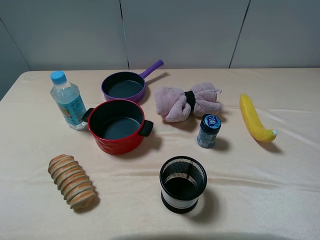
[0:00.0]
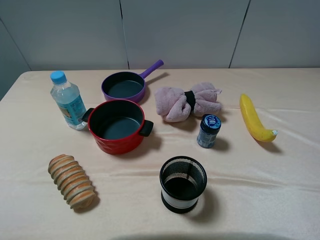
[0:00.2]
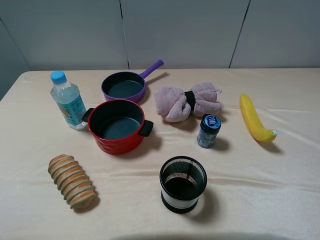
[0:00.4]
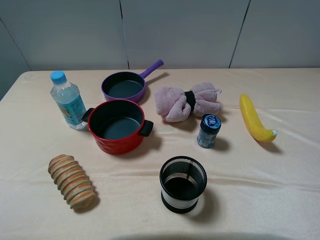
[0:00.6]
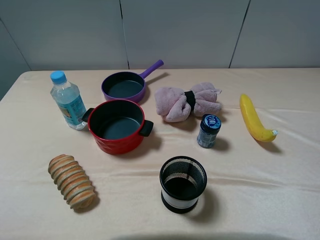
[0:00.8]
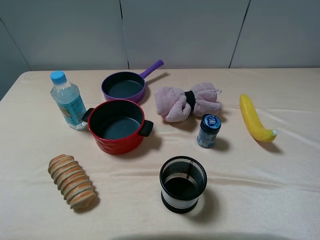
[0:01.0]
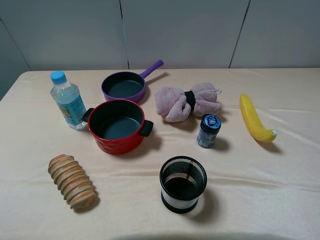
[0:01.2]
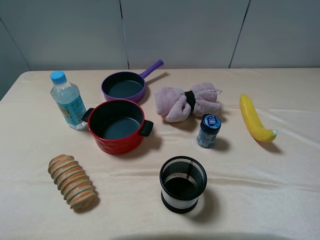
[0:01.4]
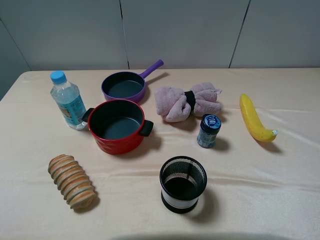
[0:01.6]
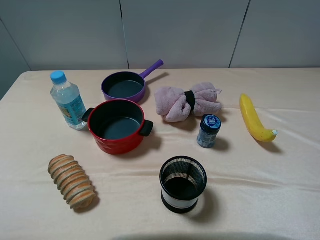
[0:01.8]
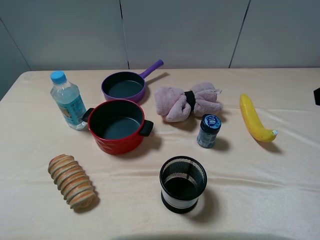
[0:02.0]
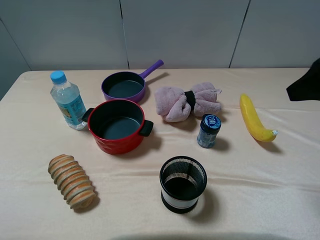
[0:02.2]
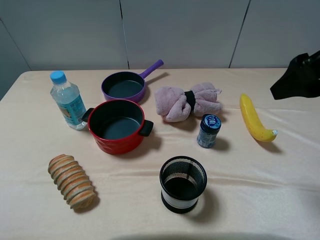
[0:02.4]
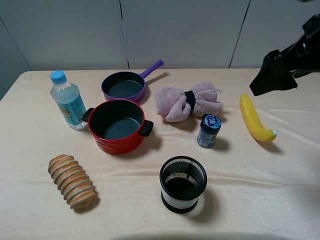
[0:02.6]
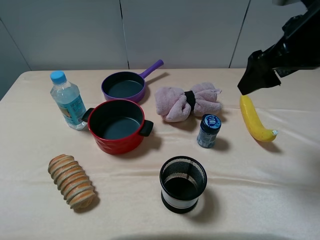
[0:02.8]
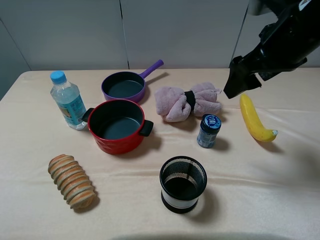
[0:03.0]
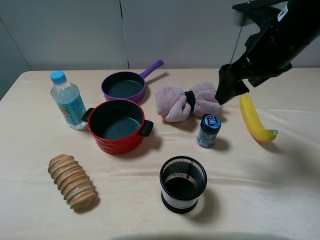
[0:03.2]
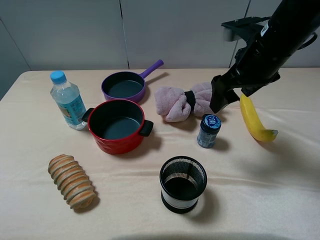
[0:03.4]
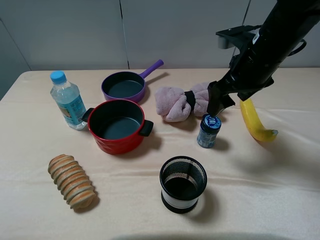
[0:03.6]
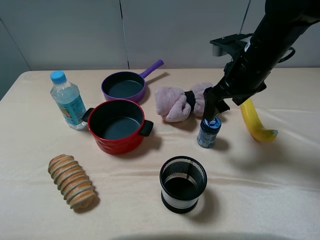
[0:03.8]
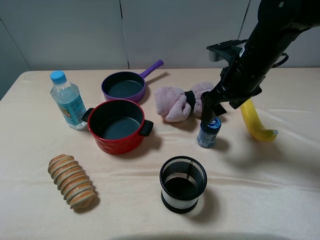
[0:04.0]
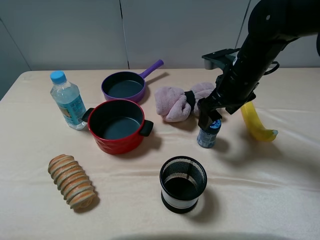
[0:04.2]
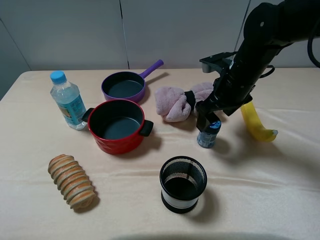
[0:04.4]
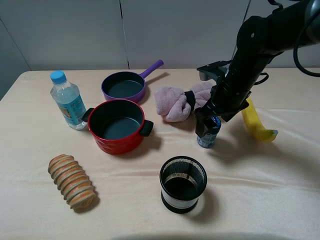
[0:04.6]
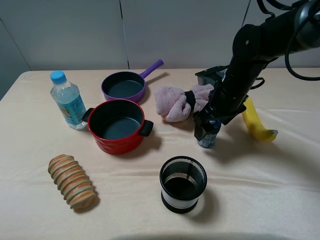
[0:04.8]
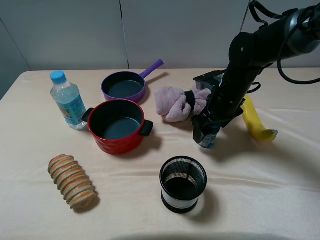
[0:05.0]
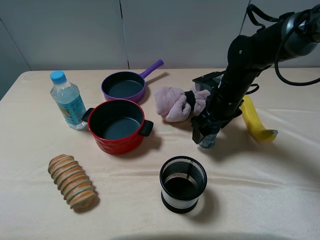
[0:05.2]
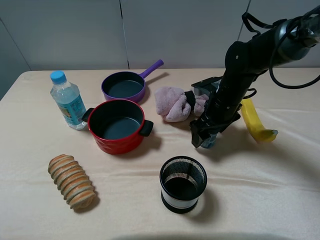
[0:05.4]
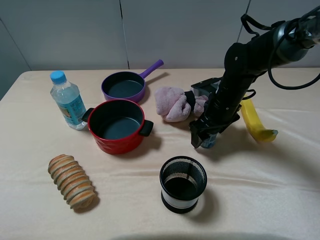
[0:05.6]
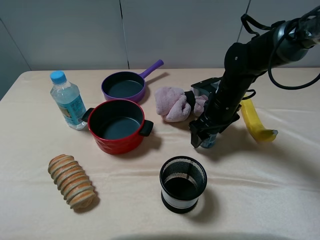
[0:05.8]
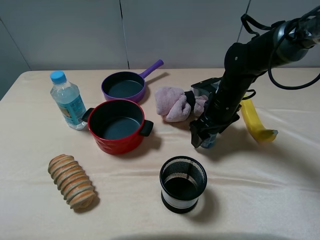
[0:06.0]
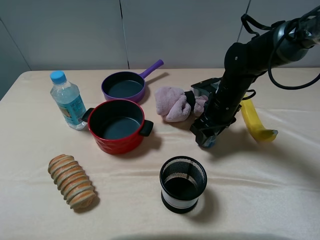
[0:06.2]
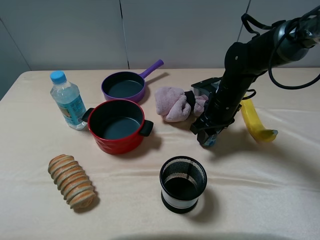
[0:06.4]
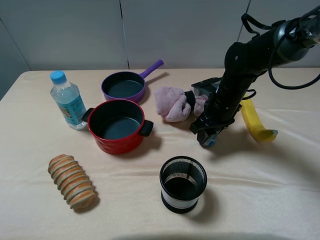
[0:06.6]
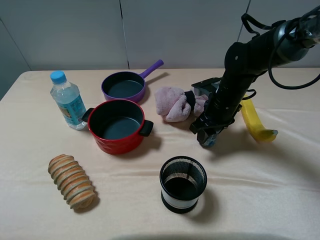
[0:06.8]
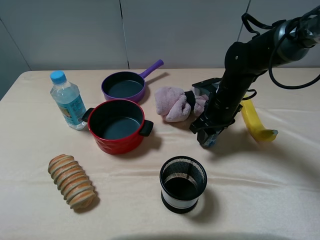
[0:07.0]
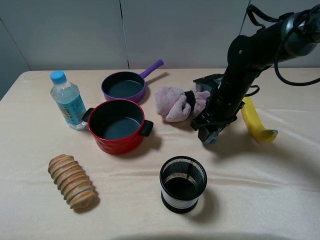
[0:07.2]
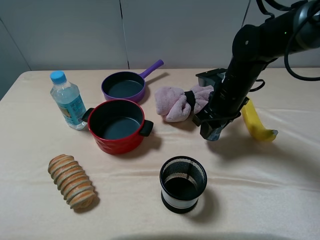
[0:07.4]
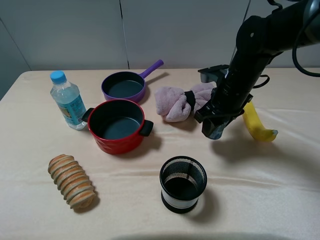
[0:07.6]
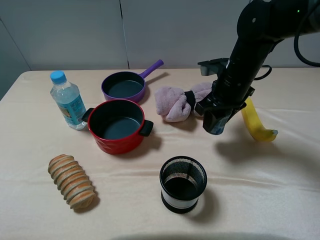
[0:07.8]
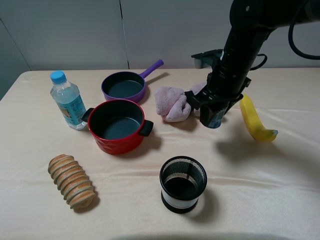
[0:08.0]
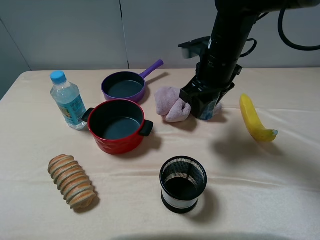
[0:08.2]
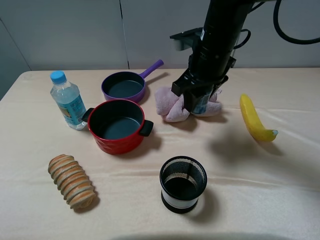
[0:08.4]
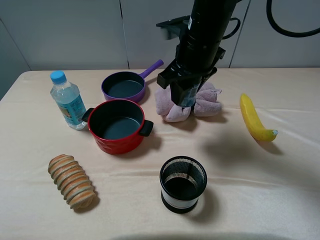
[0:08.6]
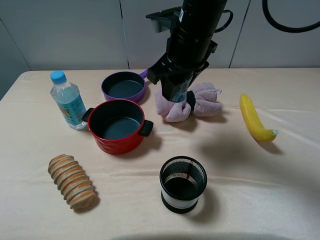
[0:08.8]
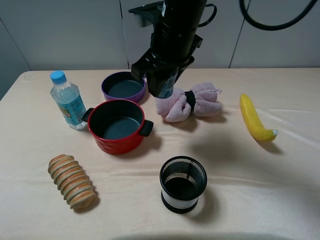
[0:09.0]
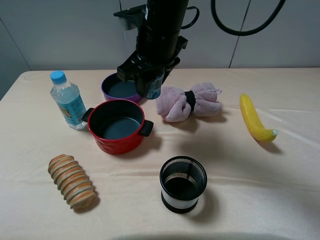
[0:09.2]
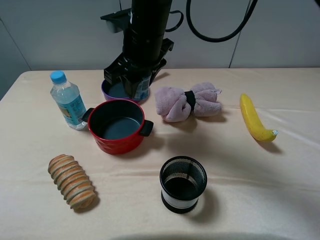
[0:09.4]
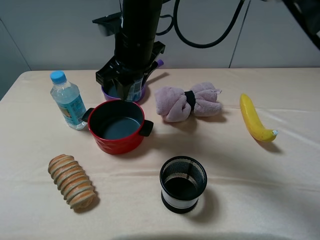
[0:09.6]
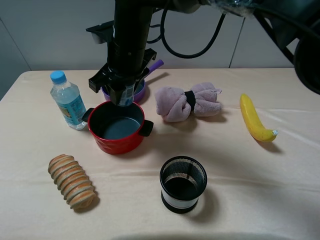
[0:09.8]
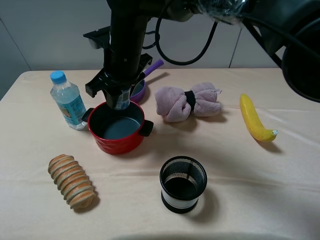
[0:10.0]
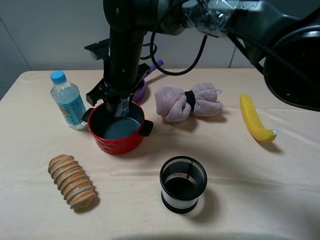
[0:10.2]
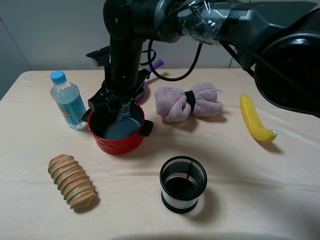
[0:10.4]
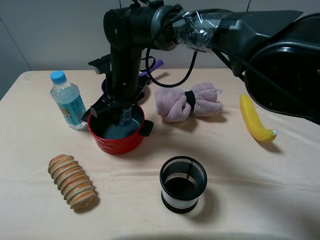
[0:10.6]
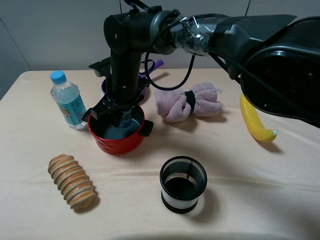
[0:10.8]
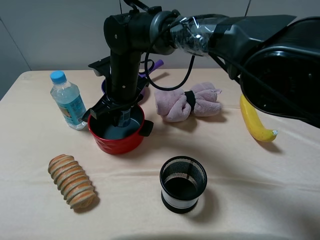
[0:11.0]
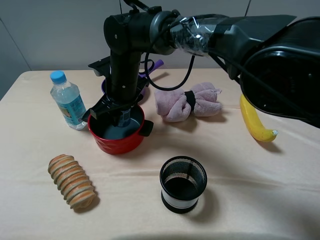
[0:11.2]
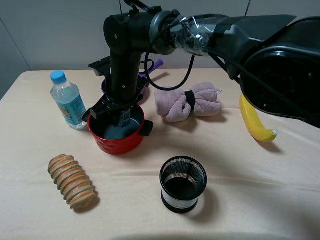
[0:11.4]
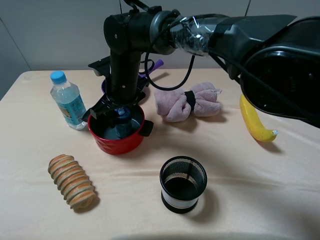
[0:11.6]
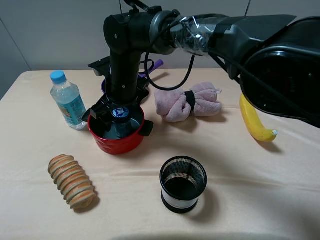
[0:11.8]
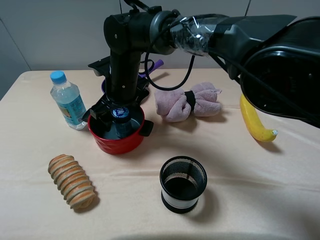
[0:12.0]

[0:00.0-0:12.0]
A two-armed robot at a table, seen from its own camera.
Task of the whole recording: pick up an item with a gripper and place it in a random container on the table.
Step, 0:00.0 to 0:06.6: Grasp the round chewing gum with the right gripper.
0:01.6 to 0:03.0: The right gripper shifts roughly 20 cm forward and to the left.
0:03.0 to 0:04.4: The right gripper goes roughly 15 cm downward and forward.
0:04.4 to 0:06.0: The right gripper goes approximately 5 cm downward.
0:06.0 to 0:07.6: The right gripper is displaced upward by roughly 5 cm, and closes its fingers.
0:07.6 to 0:09.0: The right gripper moves to the left and upward, approximately 20 cm.
0:09.0 to 0:10.4: The right gripper heads downward and to the left, covering some 15 cm.
0:10.4 to 0:12.0: The right gripper opens.

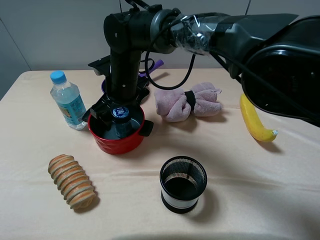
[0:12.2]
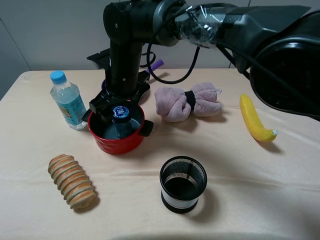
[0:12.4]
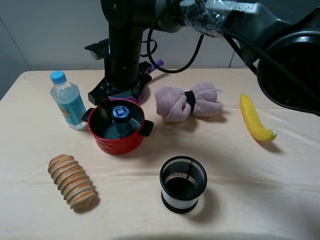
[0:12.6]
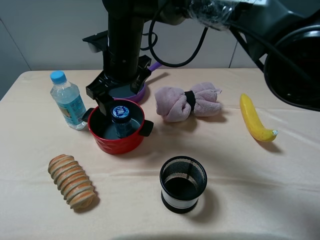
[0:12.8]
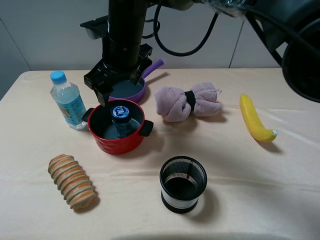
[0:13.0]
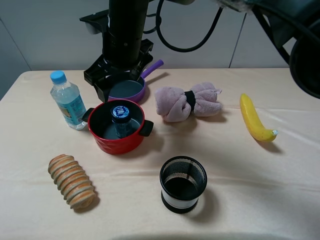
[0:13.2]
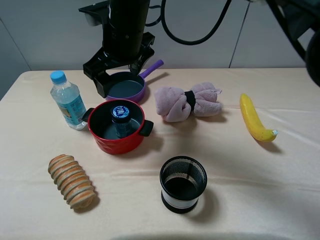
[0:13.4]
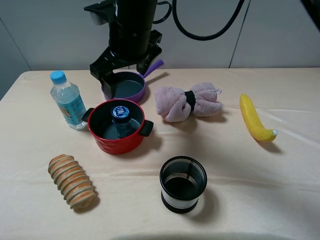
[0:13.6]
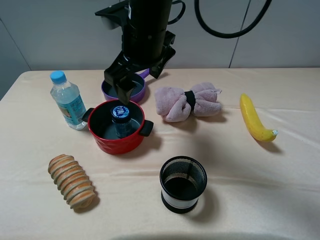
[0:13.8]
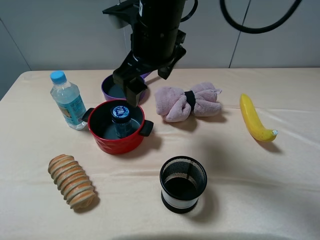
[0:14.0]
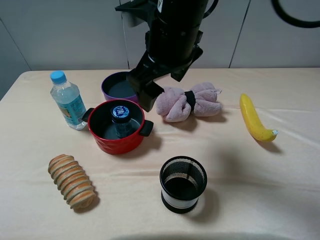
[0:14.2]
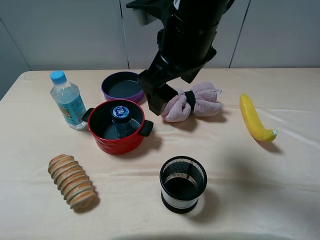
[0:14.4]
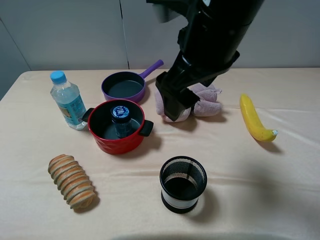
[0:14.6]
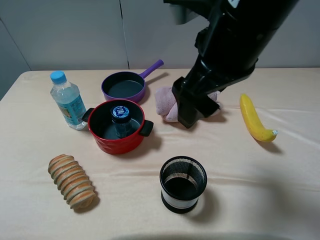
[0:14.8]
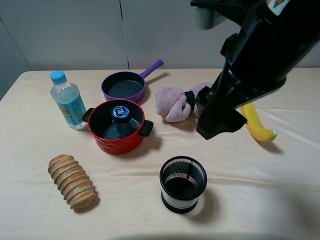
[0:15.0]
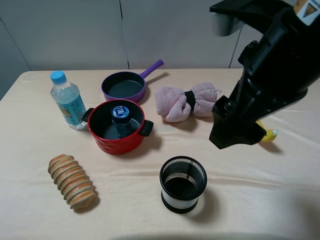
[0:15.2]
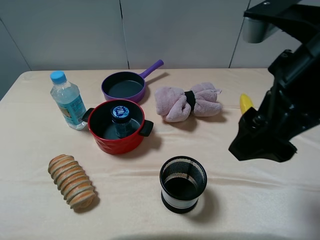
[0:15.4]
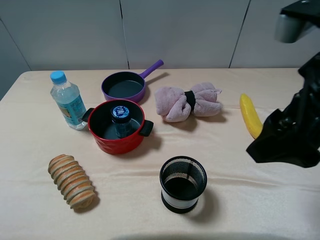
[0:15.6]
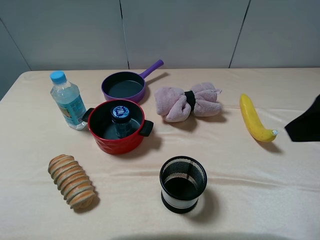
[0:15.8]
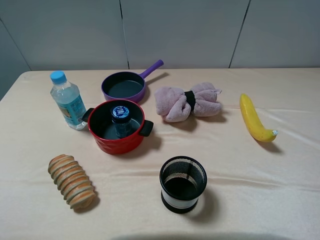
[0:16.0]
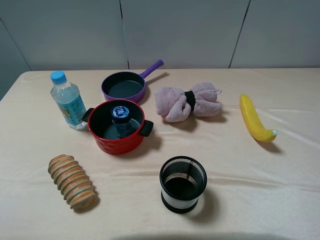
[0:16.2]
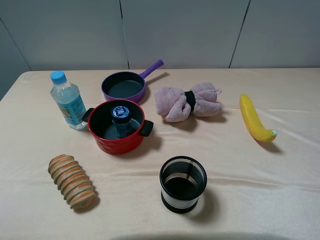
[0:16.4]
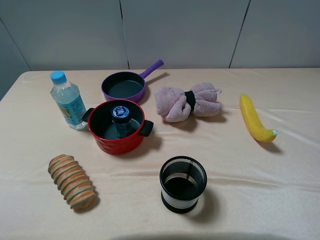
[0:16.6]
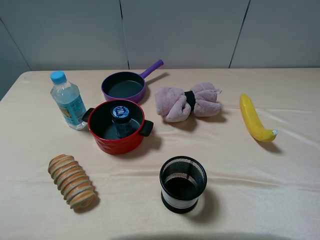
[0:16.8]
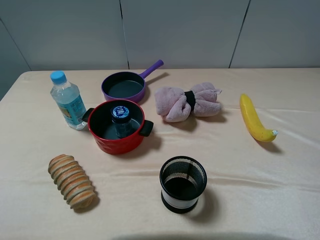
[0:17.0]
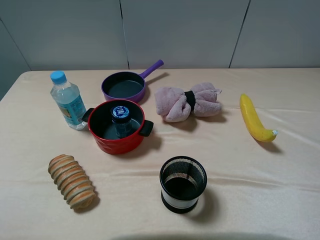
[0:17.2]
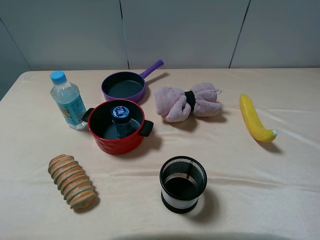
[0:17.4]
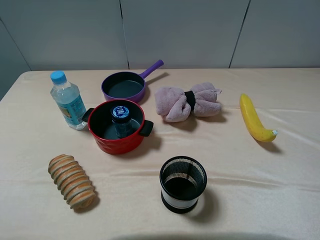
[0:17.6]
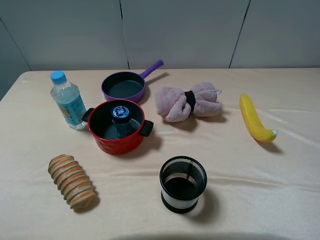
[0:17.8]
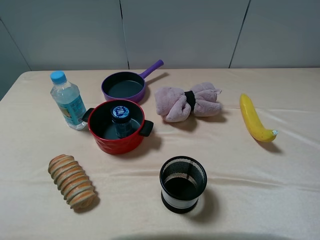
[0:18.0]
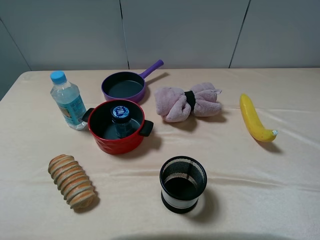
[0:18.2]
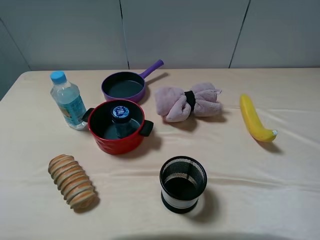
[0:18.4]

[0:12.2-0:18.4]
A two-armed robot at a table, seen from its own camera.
Task of the whole recording: pick up an item with a gripper and place it in a random container on the table.
0:12.2 to 0:13.8: The right gripper goes about 15 cm upward and to the right.
0:13.8 to 0:15.4: The right gripper heads to the right and backward, covering about 25 cm.
0:15.4 to 0:16.8: The right gripper travels to the right and backward by some 20 cm.
